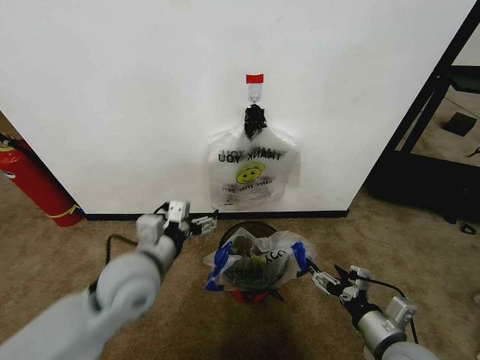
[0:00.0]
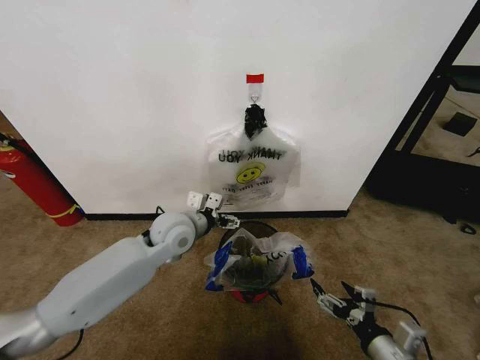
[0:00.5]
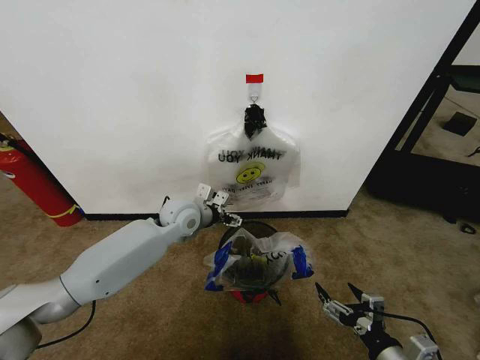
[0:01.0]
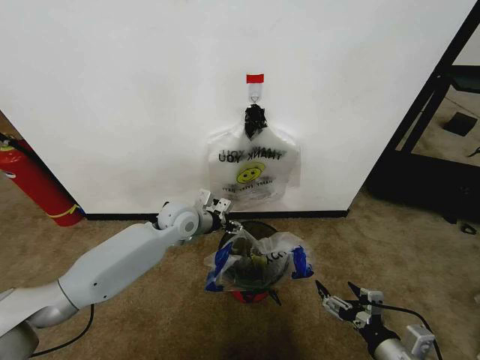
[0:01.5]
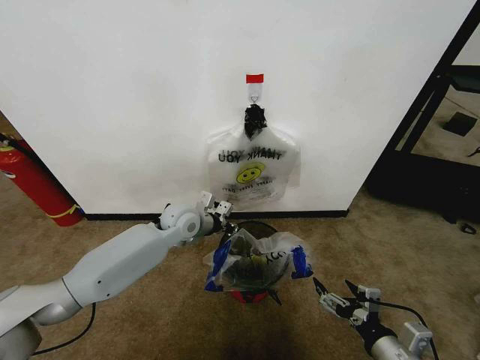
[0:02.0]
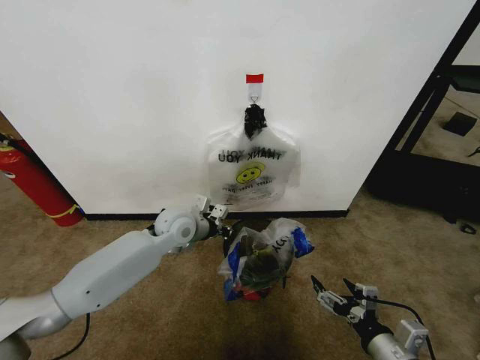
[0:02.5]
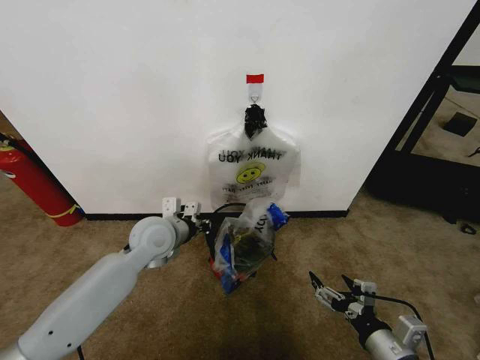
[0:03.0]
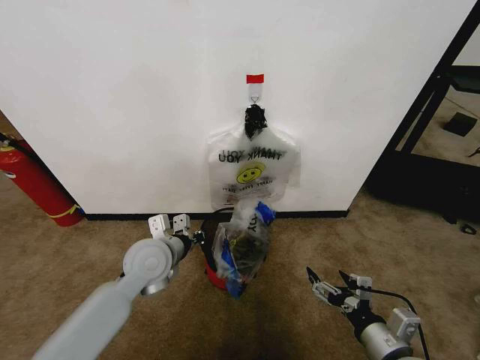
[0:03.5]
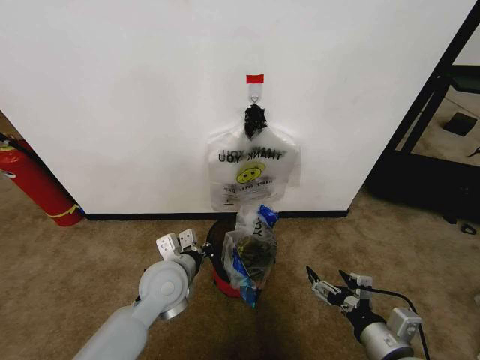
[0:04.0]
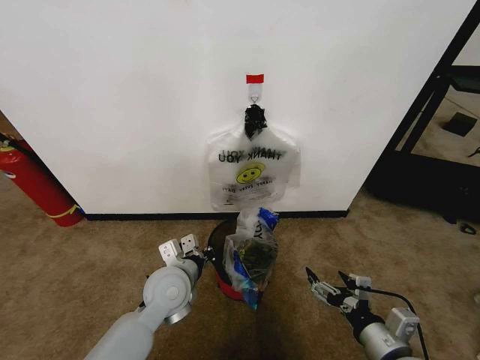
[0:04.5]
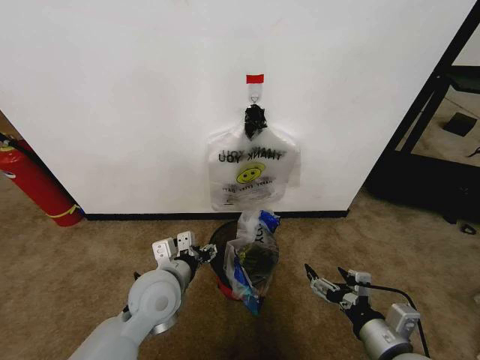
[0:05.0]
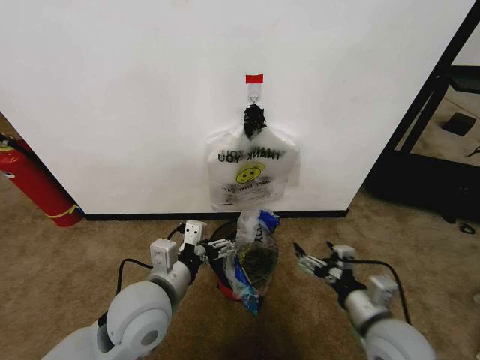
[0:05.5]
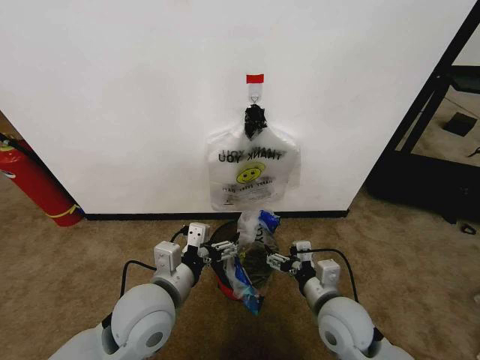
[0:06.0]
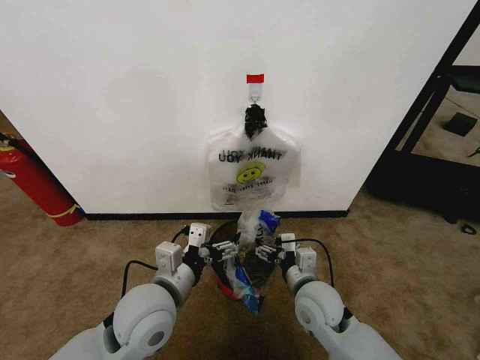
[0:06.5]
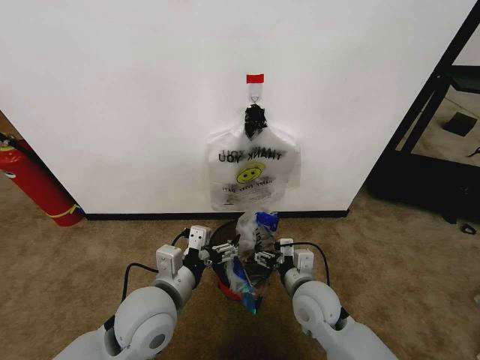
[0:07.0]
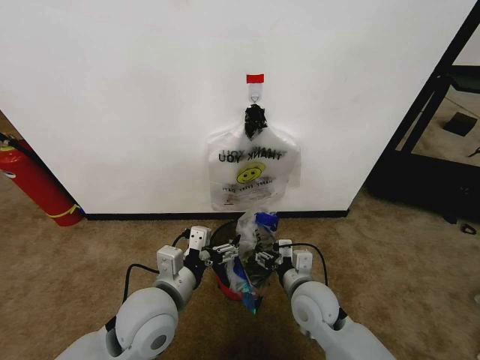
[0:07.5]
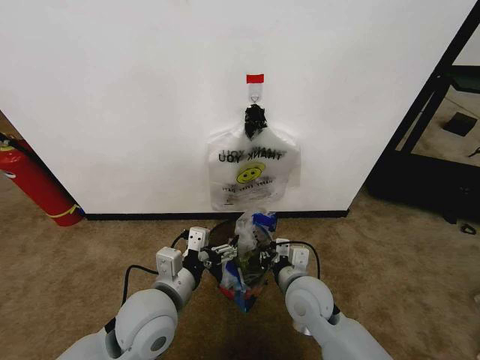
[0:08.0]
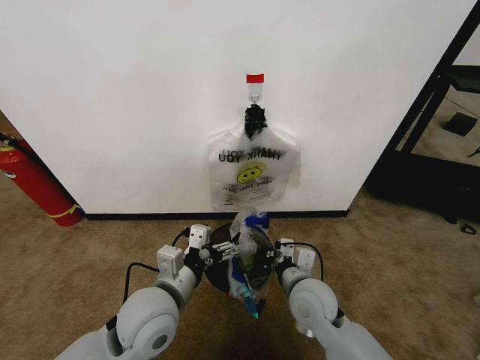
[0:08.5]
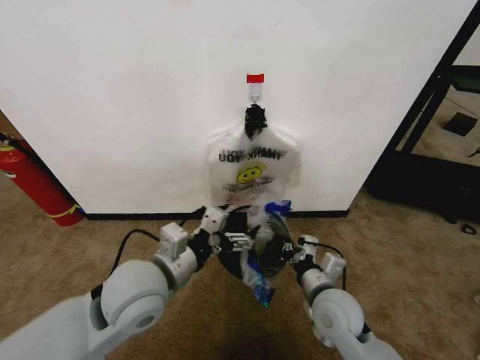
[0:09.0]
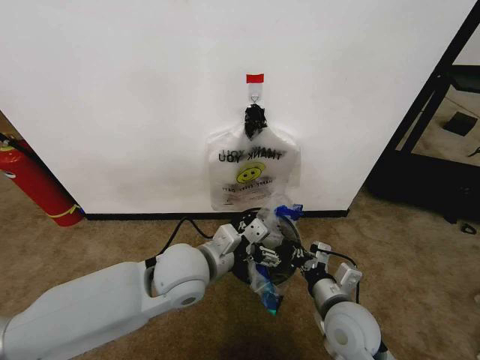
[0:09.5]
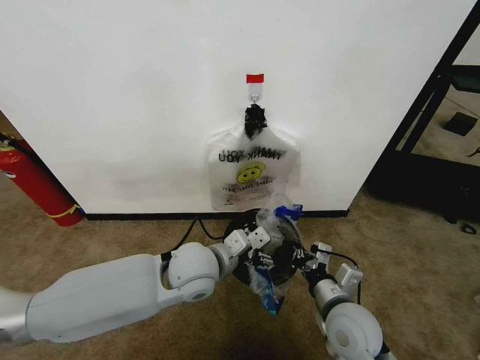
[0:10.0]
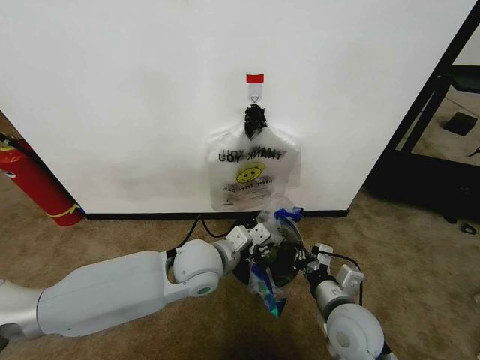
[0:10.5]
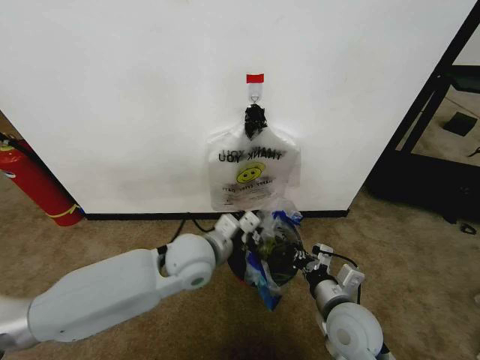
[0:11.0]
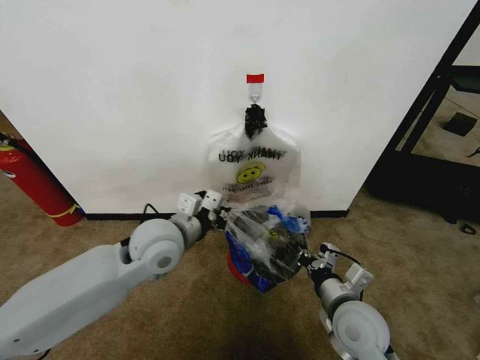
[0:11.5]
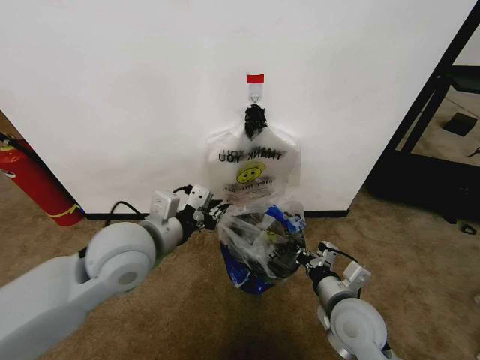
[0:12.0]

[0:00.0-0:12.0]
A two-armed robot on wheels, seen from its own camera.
Task of the whole recording: Pick up the garbage bag from the wall and place it over the trash bin.
0:00.0 to 0:02.0: The left gripper travels forward by some 20 cm, and closes.
0:02.0 to 0:04.0: The left gripper is displaced backward by roughly 15 cm.
0:04.0 to 0:06.0: The right gripper goes approximately 15 cm forward and to the left; the left gripper heads backward and upward, covering about 10 cm, and opens its fingers.
0:06.0 to 0:08.0: The right gripper goes about 5 cm to the left, and closes.
0:08.0 to 0:10.0: The right gripper travels to the right and backward by roughly 10 cm; the left gripper travels forward and to the right by about 10 cm.
0:10.0 to 0:12.0: The left gripper travels upward and to the left by some 15 cm, and closes up.

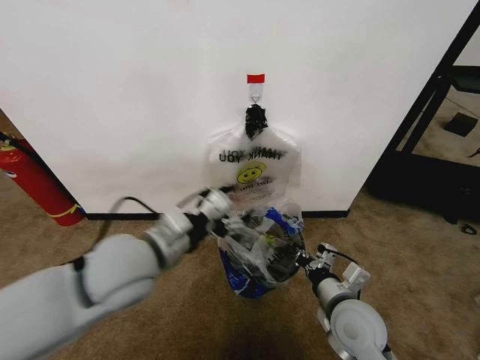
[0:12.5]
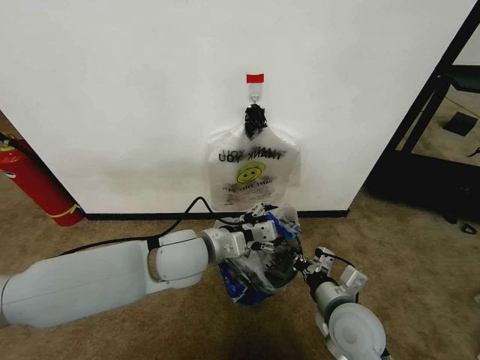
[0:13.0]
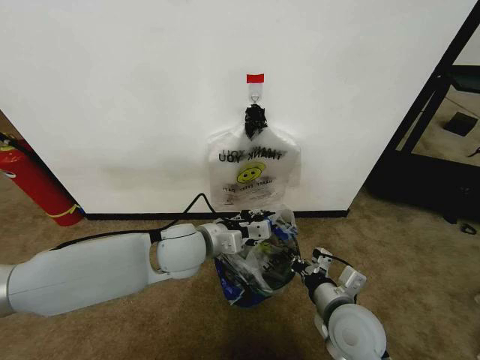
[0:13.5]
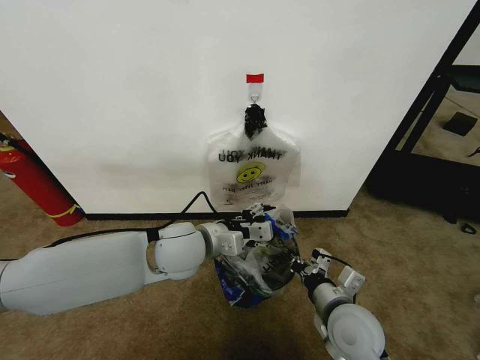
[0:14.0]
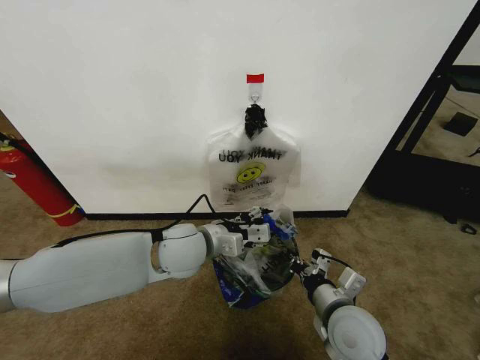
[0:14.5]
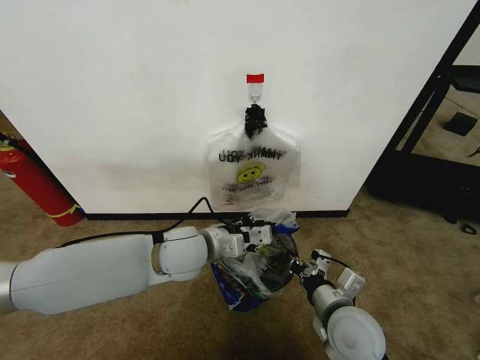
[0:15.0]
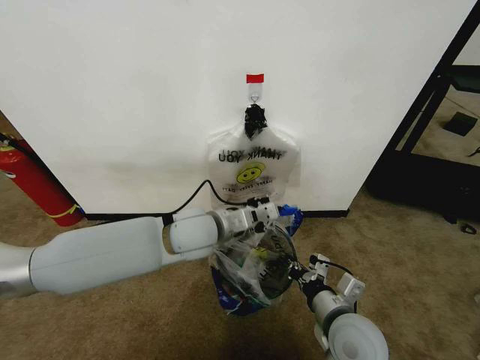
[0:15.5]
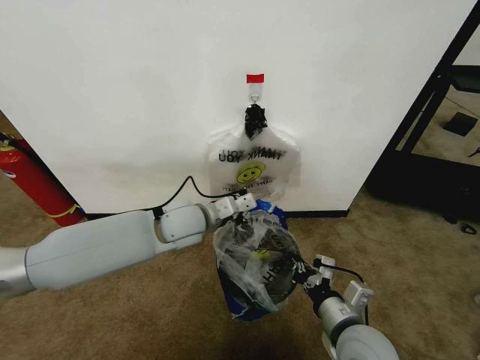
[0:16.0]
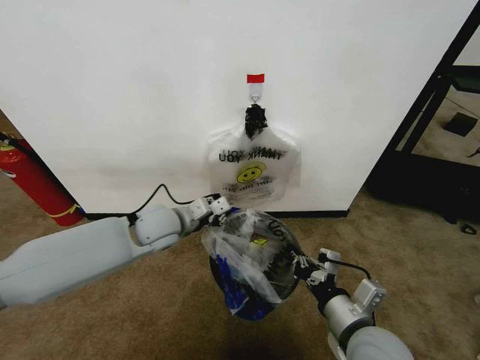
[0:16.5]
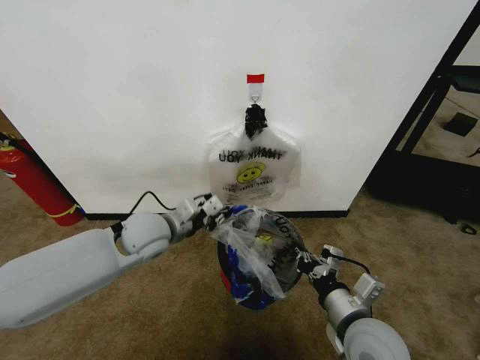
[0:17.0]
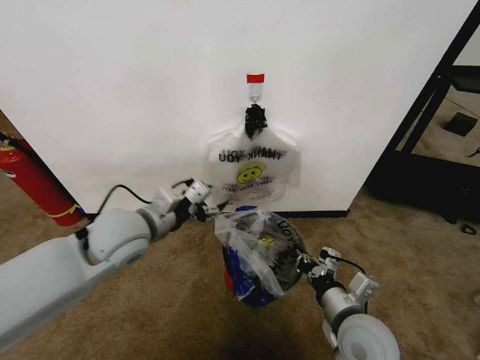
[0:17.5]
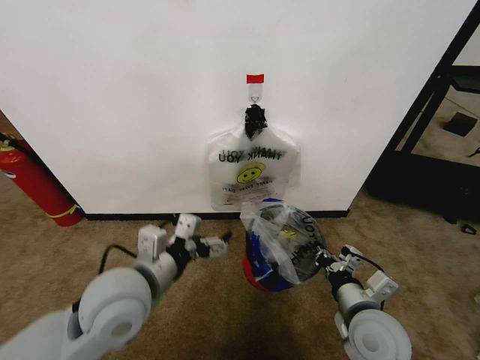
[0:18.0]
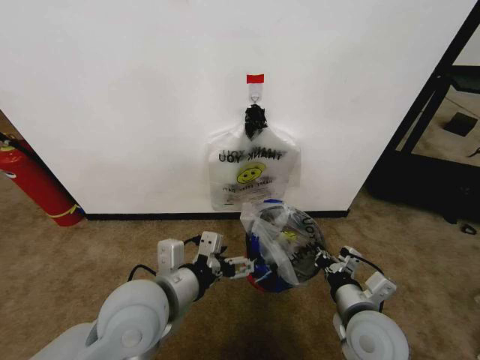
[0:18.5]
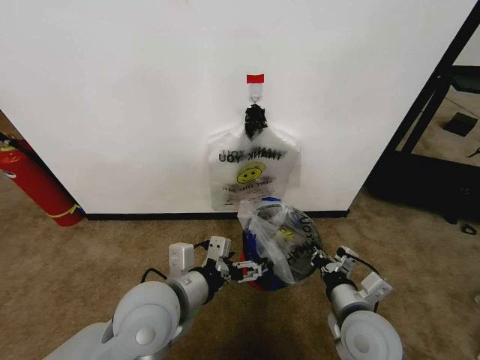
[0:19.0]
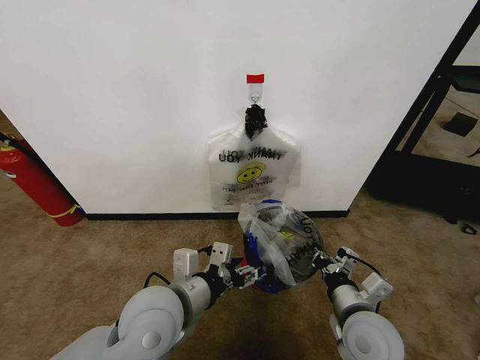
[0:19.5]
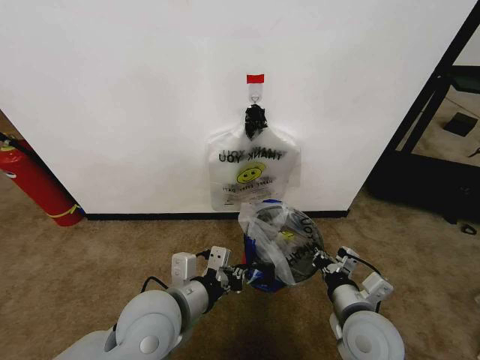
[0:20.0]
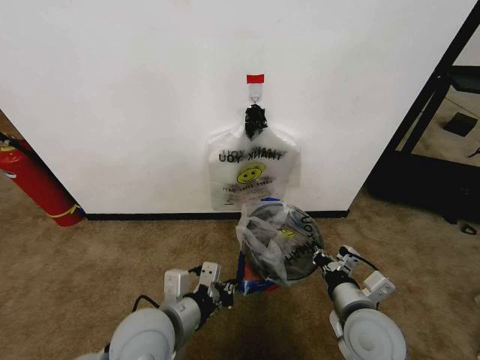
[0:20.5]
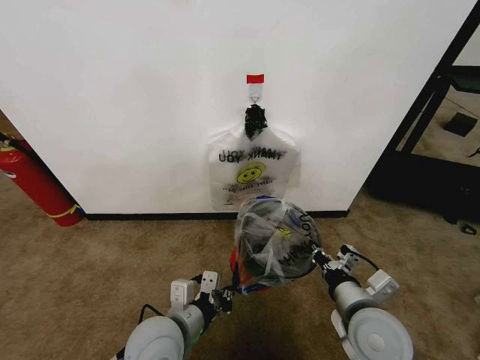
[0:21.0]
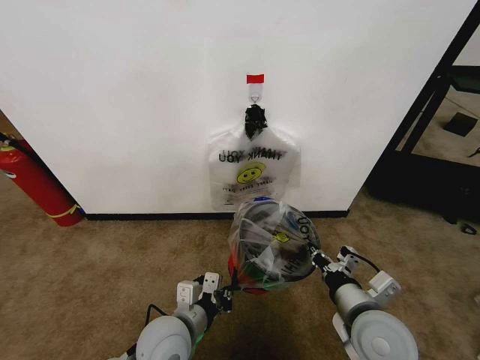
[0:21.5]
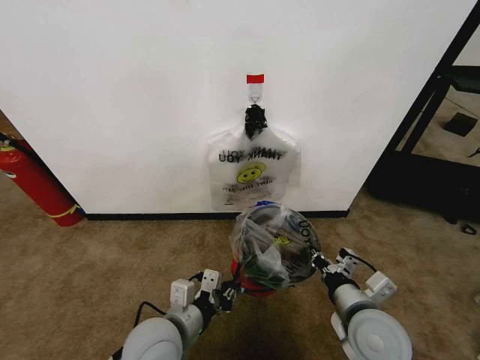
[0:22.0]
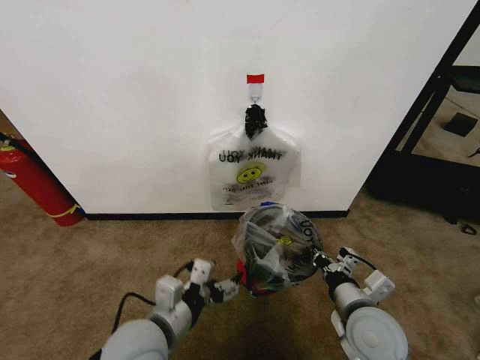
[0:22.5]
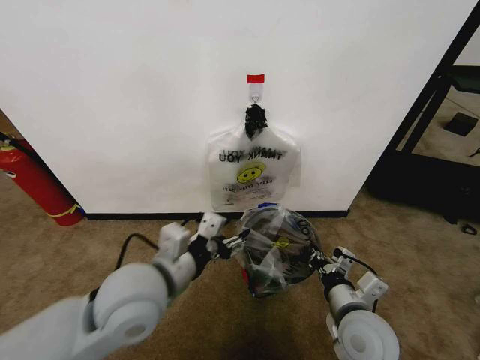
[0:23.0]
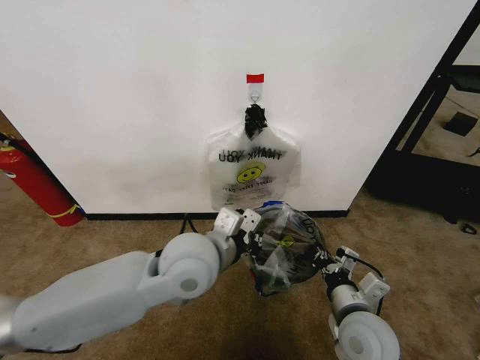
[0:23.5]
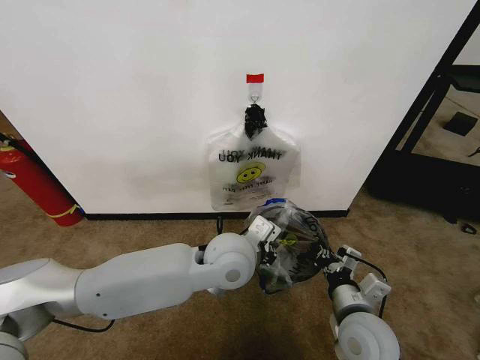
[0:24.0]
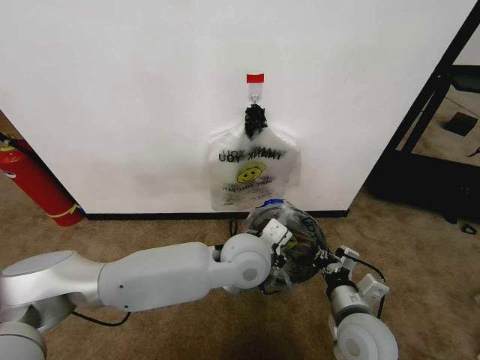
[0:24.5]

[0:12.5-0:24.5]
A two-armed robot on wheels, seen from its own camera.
Task of the whole recording: Pick up the garbage bag from the wall and place it over the trash bin.
0:12.5 to 0:14.5: The left gripper is displaced forward, downward and to the right by approximately 10 cm.
0:14.5 to 0:16.5: The right gripper shifts by about 5 cm, while the left gripper moves forward, roughly 5 cm, and closes.
0:16.5 to 0:18.5: The right gripper moves about 5 cm. The left gripper travels backward by some 20 cm, and opens its fingers.
0:18.5 to 0:20.5: The left gripper shifts some 5 cm downward, and closes.
0:20.5 to 0:22.5: The left gripper opens.
0:22.5 to 0:24.5: The left gripper heads to the right and forward, covering roughly 20 cm, and closes.

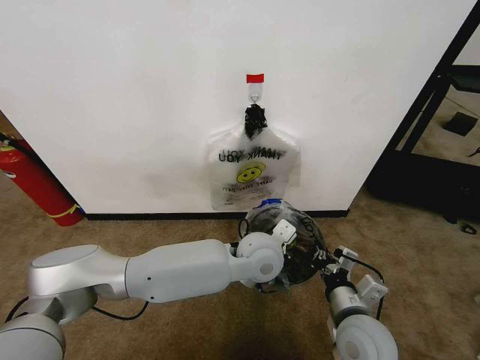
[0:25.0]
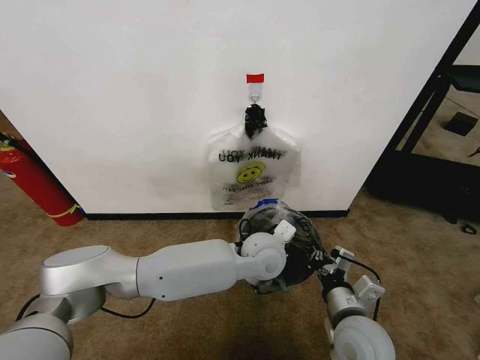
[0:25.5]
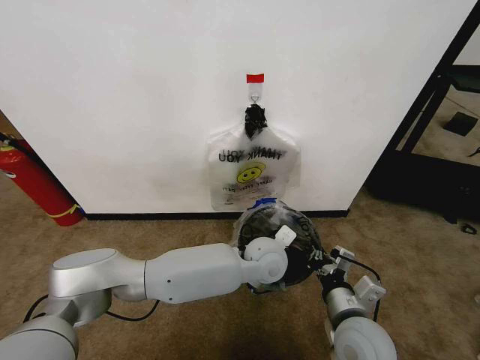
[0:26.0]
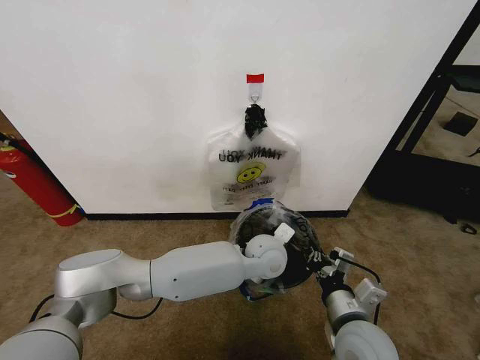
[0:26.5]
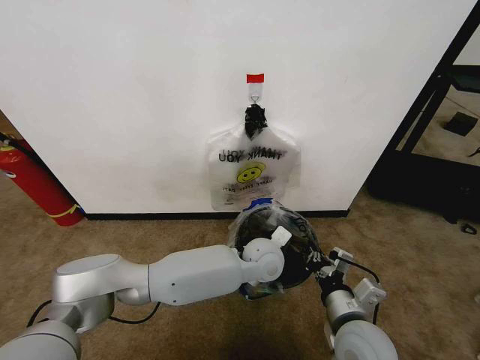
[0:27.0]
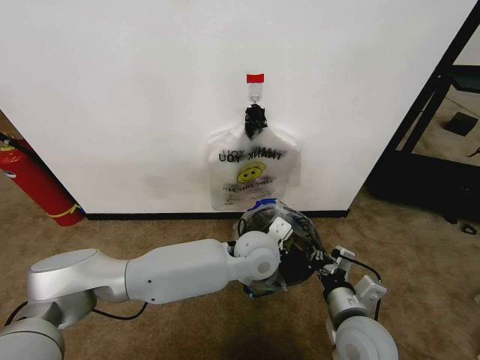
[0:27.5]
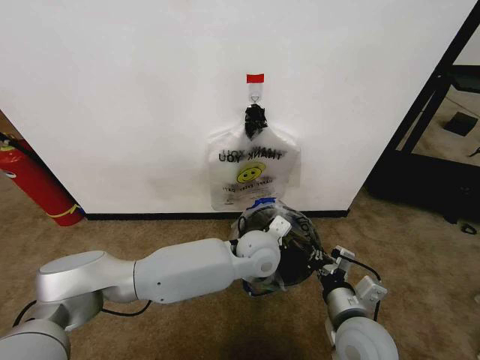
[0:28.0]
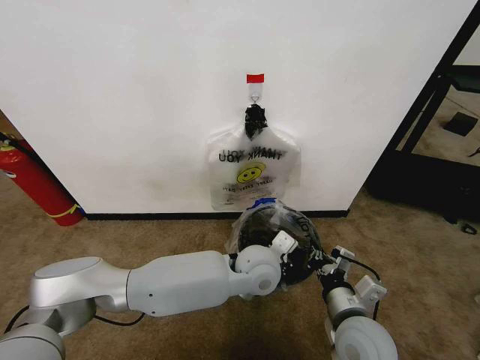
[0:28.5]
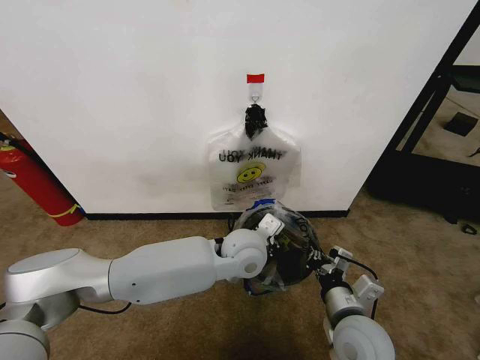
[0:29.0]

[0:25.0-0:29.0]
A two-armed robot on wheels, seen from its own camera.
Task of the whole recording: Pick up the garbage bag from the wall and place it over the trash bin.
0:25.0 to 0:27.0: The left gripper shifts about 5 cm downward.
0:27.0 to 0:29.0: The left gripper goes approximately 5 cm upward.
